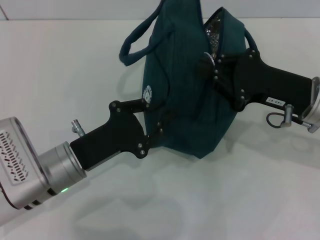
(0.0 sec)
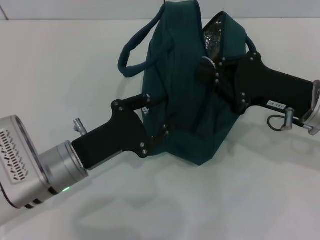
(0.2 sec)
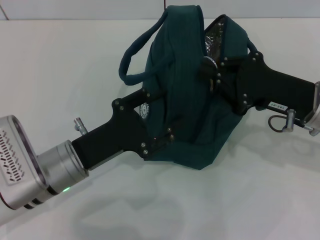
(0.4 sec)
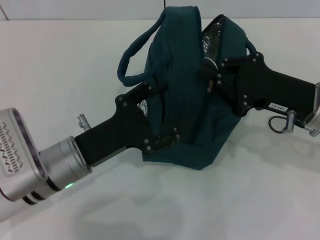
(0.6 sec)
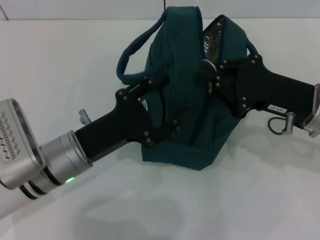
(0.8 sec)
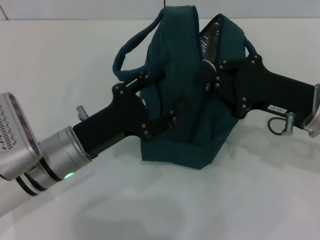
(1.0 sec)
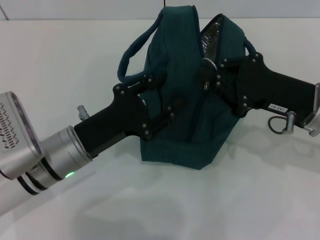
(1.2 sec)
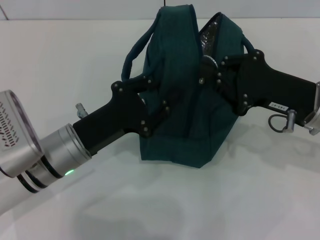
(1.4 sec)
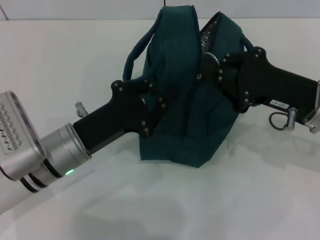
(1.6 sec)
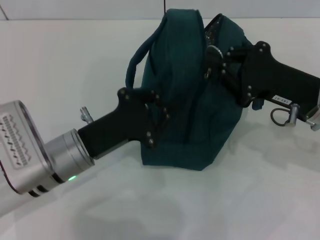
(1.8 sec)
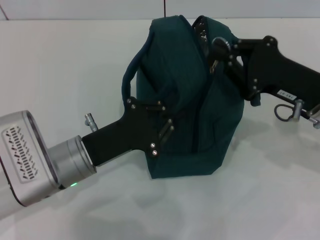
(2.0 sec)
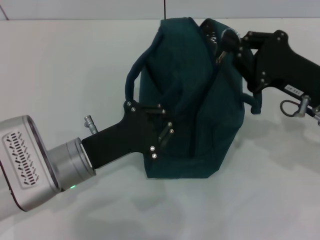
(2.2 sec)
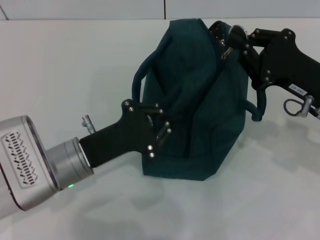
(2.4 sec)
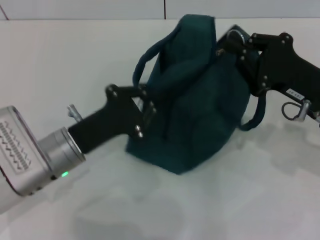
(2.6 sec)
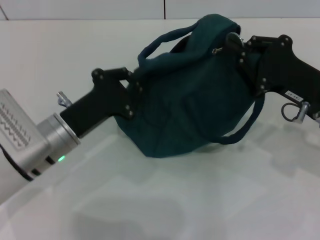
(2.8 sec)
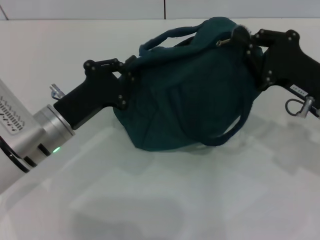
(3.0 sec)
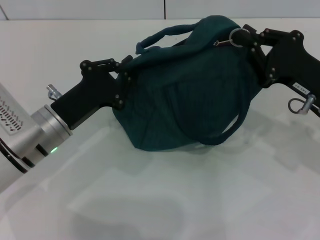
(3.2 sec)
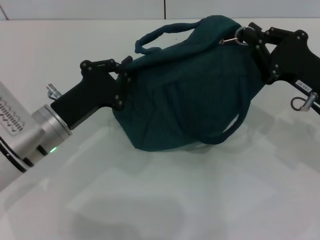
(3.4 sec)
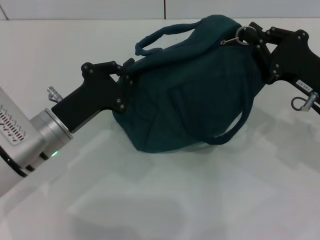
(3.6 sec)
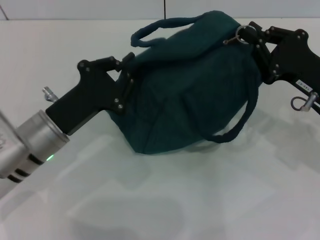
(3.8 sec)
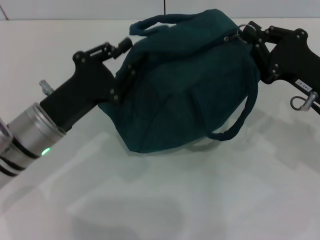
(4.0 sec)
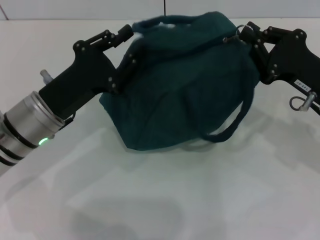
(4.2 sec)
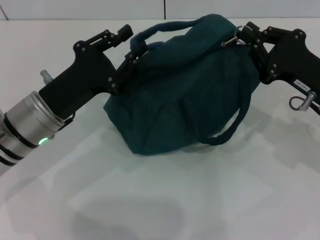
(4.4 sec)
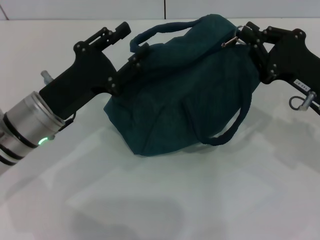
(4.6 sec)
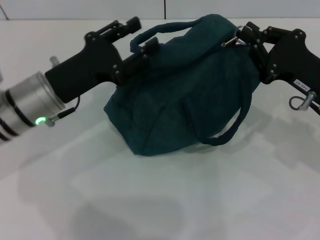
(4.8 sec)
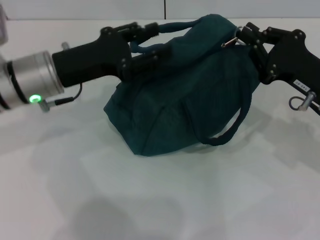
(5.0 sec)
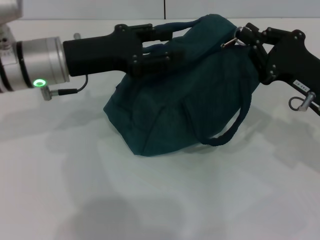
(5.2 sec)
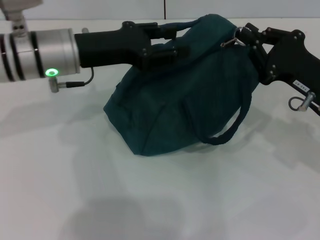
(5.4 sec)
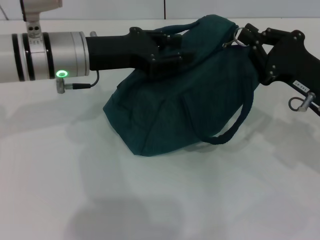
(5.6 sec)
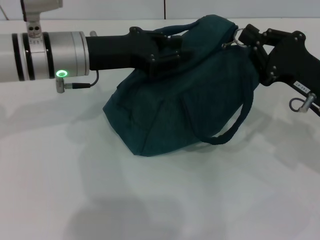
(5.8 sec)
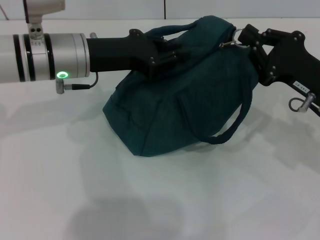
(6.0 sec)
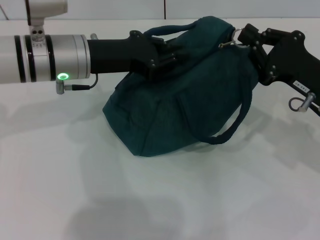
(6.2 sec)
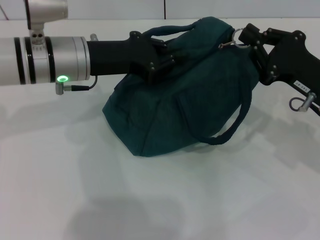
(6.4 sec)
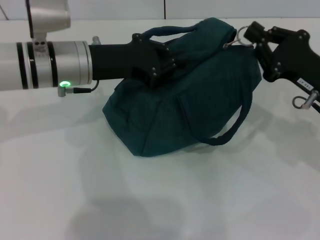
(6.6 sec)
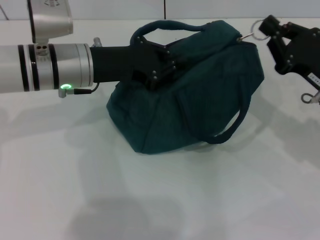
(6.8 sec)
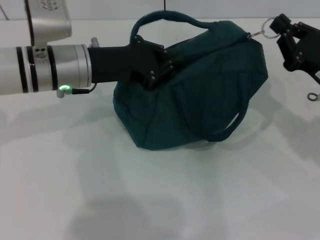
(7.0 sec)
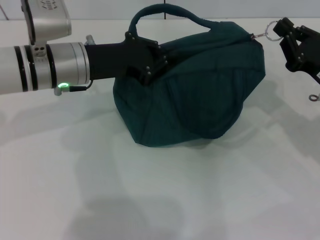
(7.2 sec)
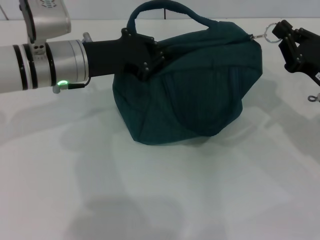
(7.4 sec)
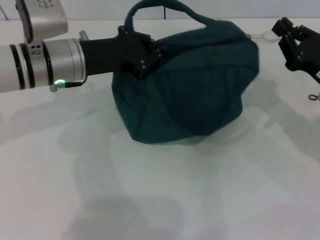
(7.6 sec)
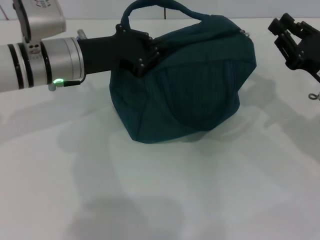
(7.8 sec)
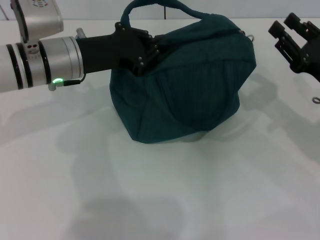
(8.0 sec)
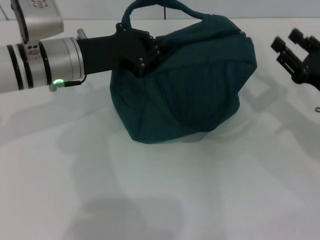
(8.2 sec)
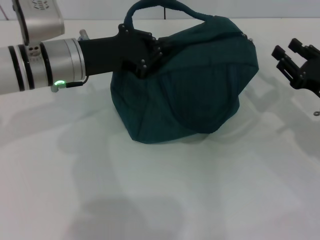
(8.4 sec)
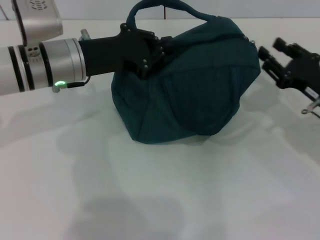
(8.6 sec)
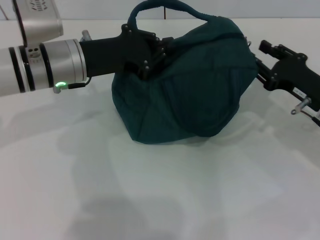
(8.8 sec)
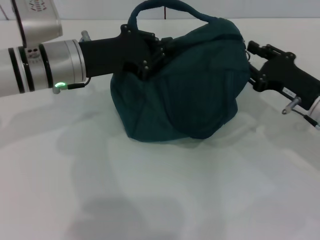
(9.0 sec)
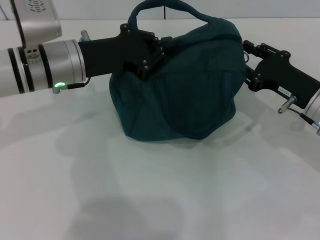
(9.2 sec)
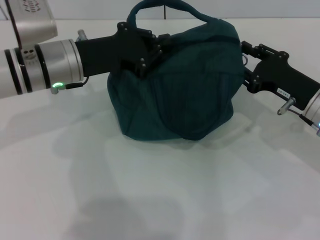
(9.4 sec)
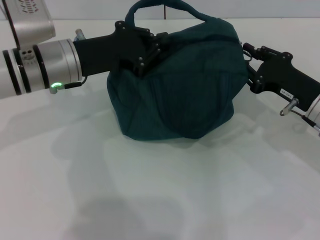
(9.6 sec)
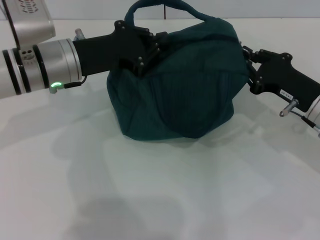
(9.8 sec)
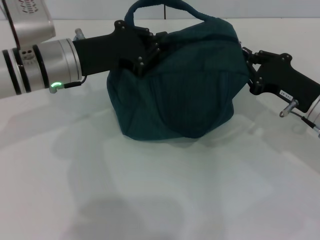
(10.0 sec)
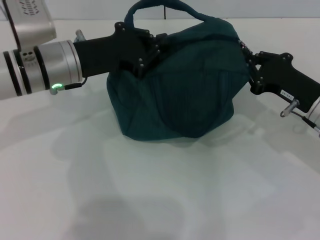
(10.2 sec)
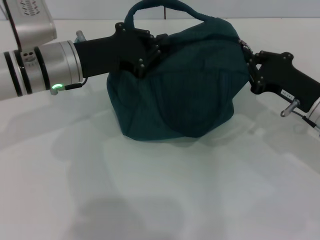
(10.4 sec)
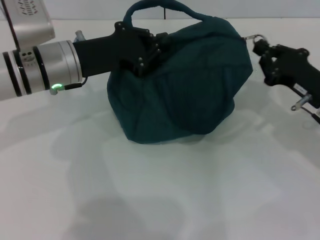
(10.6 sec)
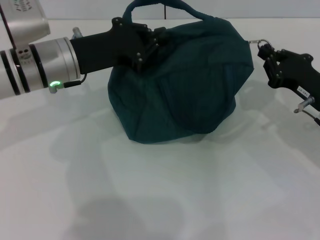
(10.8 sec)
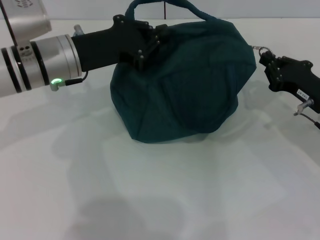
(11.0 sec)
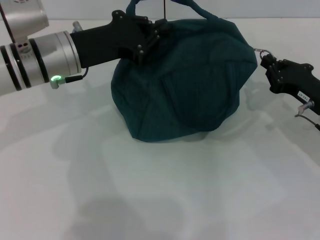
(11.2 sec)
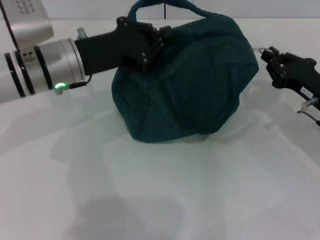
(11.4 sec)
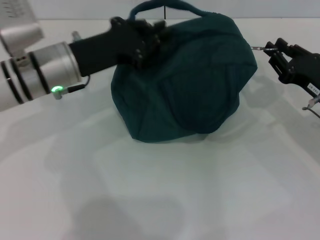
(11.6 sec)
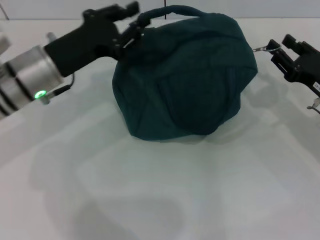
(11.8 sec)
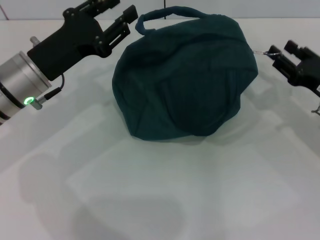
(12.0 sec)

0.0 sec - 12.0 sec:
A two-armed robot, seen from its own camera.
Step, 0.0 sec - 7.6 sec: Zip up the lunch bag with your right hand.
Step, 7.8 sec - 11.6 sec: Hold the lunch bag with your left hand.
0.0 sec - 1.6 sec: The left gripper opens, then closes again.
1.6 sec - 3.0 sec: The left gripper closes up.
3.0 sec - 4.4 sec: The left gripper opens up.
4.4 sec - 6.0 sec: The left gripper is displaced forward and upward by some 10 cm.
6.0 sec - 7.6 sec: The left gripper closes.
7.6 sec - 9.0 sec: The right gripper opens its fingers.
9.0 sec - 10.4 sec: The right gripper closes.
10.4 sec - 12.0 sec: The left gripper shifts by roughly 5 cm, and opens up. The right gripper opens up.

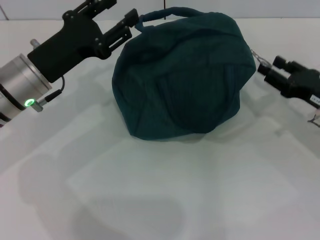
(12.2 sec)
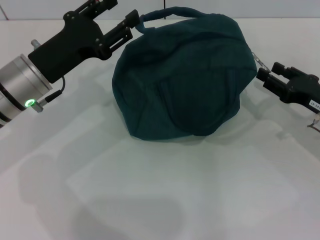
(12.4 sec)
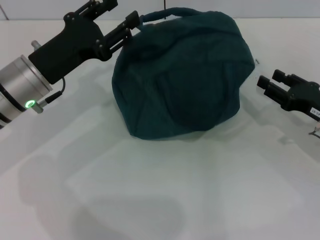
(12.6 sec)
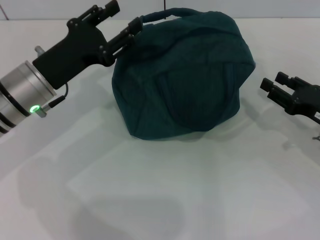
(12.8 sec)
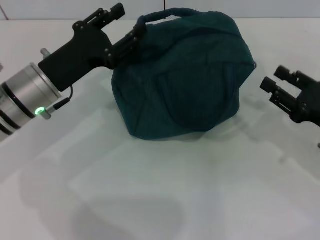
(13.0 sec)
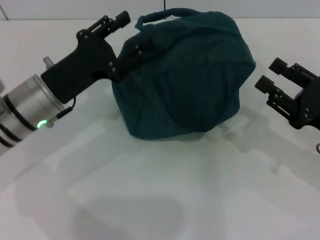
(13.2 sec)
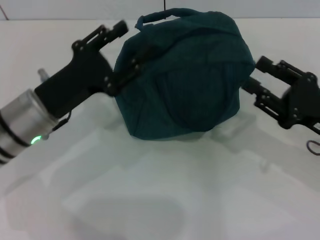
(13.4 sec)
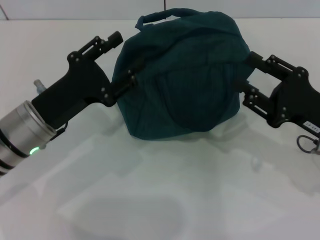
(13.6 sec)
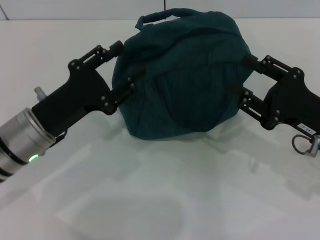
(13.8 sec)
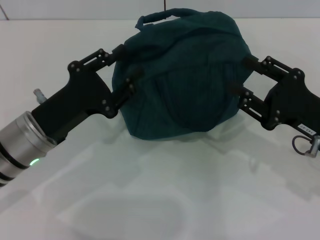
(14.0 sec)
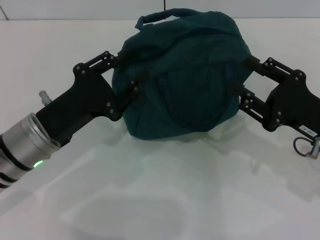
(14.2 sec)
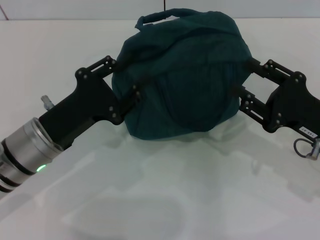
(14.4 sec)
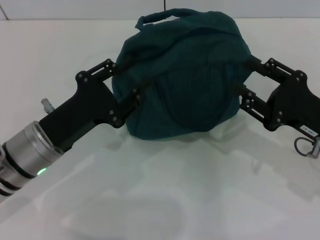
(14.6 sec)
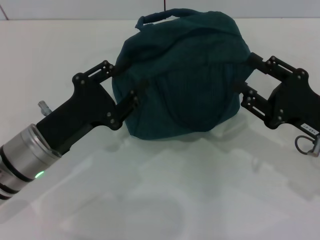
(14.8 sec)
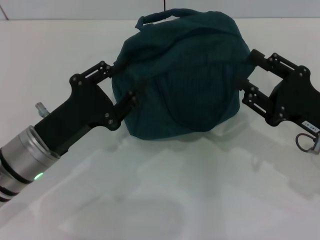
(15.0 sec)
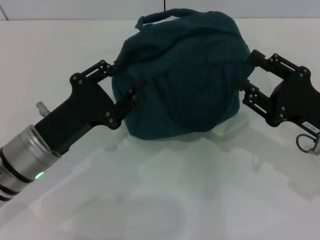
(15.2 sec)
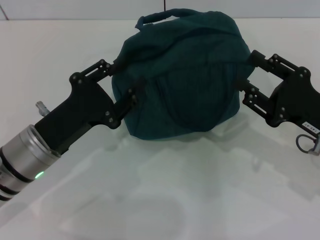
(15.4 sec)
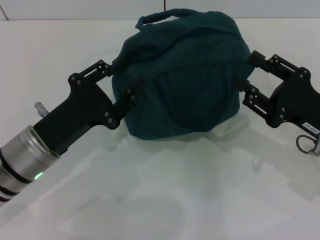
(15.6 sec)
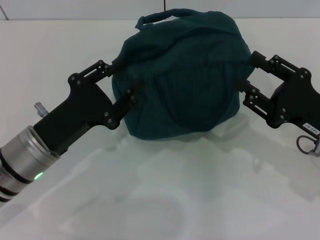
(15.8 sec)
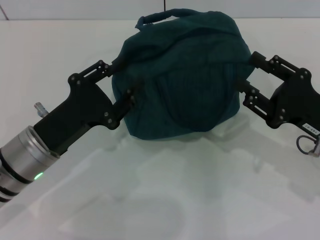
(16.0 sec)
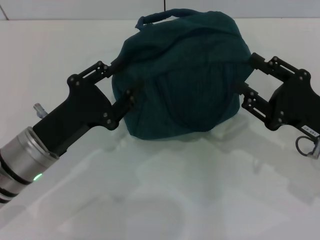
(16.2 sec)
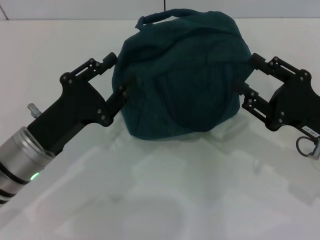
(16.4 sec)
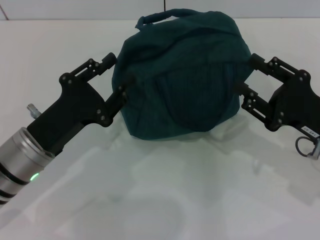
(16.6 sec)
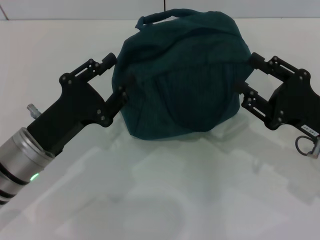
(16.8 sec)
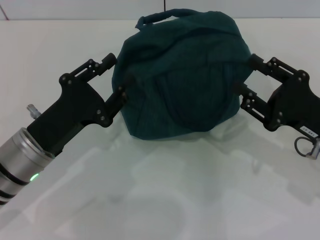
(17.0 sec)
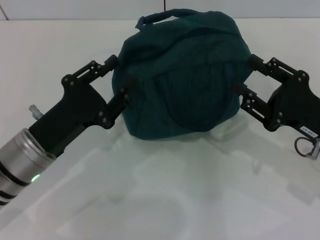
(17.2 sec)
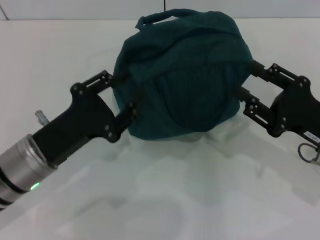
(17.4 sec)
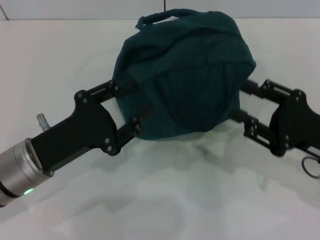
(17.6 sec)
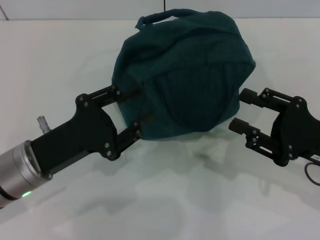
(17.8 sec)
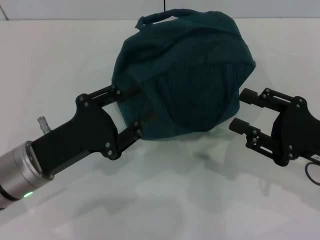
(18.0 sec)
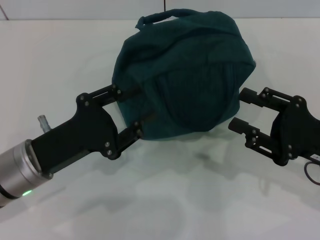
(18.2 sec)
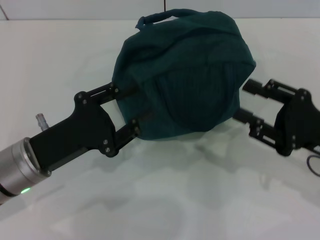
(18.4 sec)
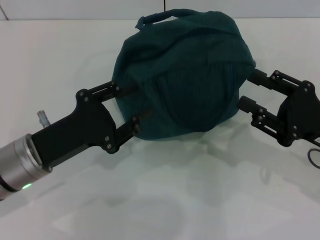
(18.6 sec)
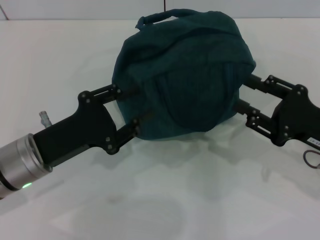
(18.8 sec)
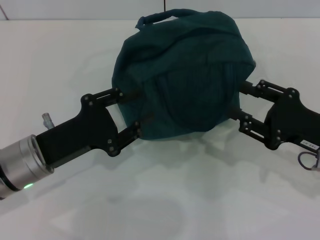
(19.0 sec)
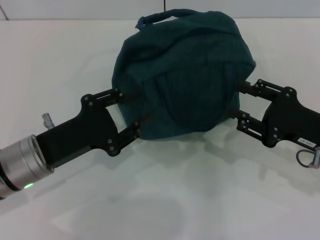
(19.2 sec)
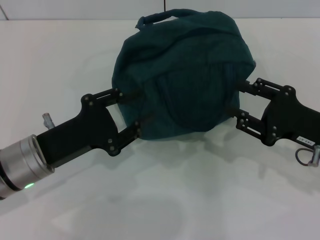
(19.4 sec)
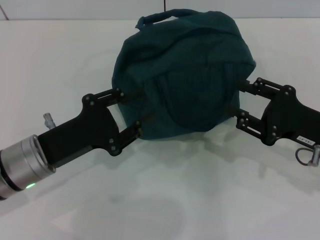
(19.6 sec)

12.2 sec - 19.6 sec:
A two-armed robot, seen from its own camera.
12.2 sec - 13.6 sec: The right gripper heads backward, covering about 5 cm. The left gripper changes place by some 5 cm.
13.6 sec - 15.2 sec: There are only small adjustments of the grippers.
15.2 sec - 16.6 sec: Both grippers stay put.
16.6 sec - 19.6 sec: The grippers stay close to where they were, moving slightly.
